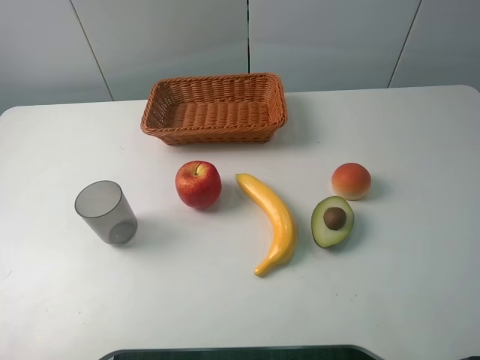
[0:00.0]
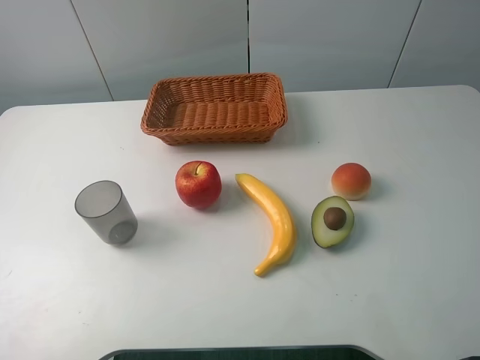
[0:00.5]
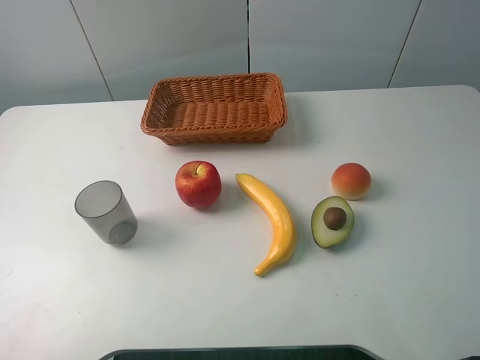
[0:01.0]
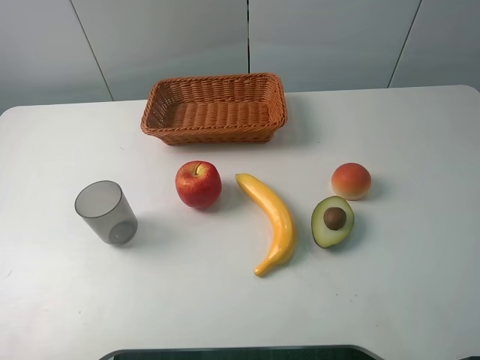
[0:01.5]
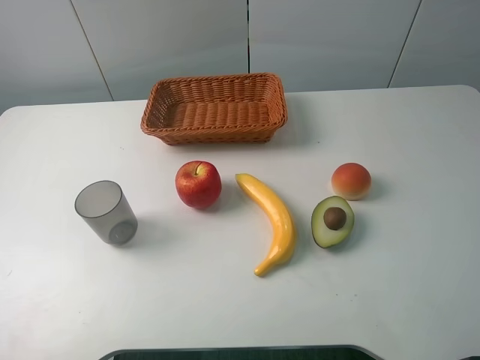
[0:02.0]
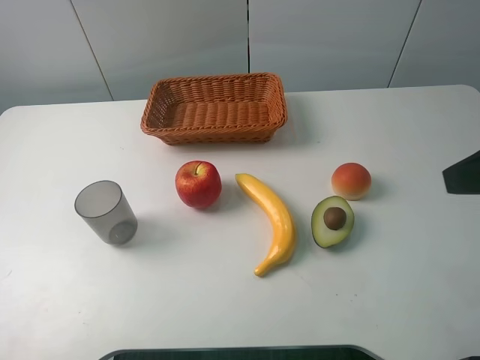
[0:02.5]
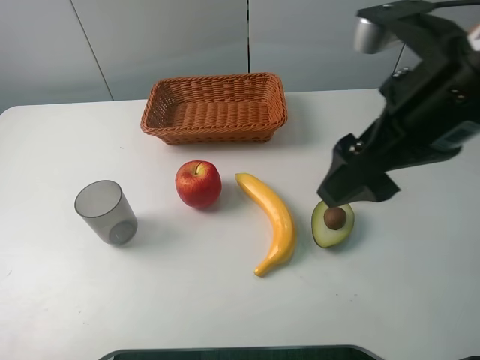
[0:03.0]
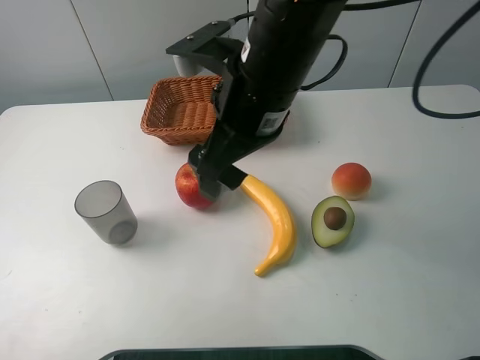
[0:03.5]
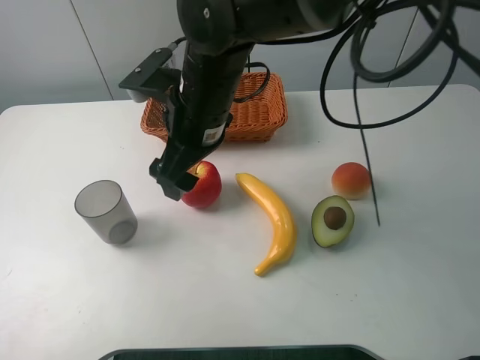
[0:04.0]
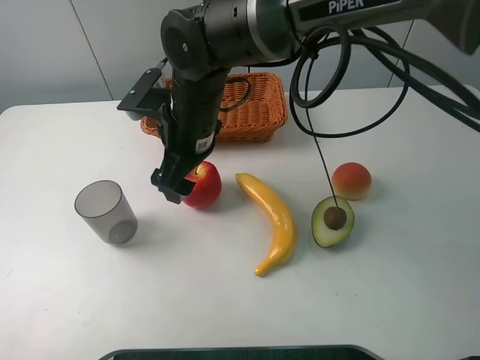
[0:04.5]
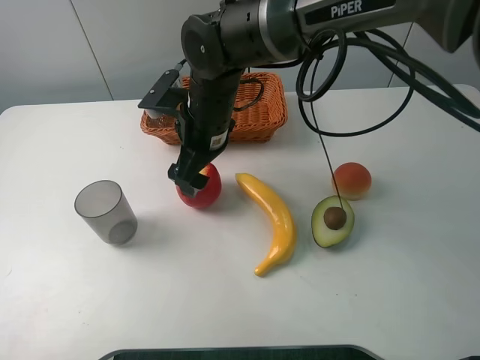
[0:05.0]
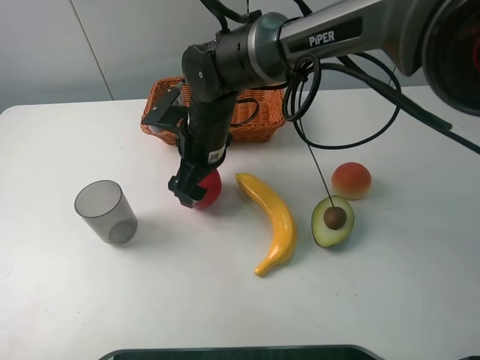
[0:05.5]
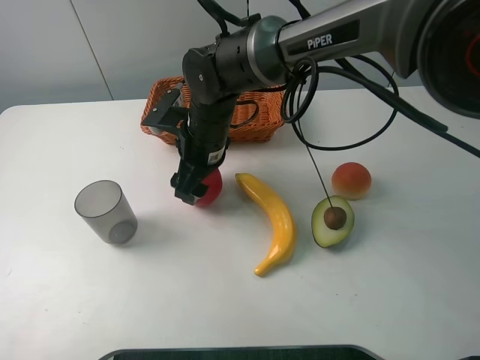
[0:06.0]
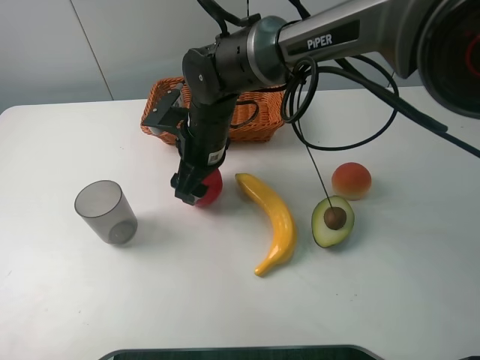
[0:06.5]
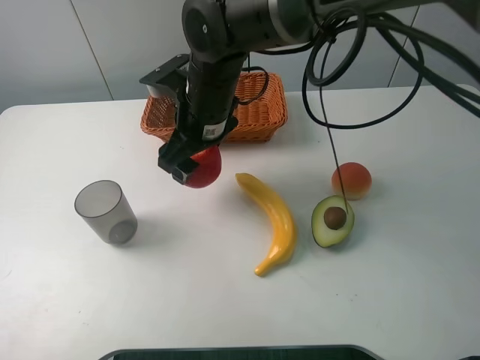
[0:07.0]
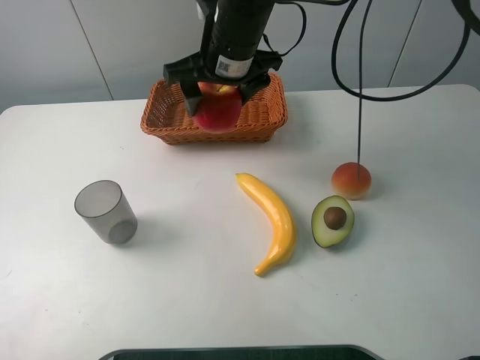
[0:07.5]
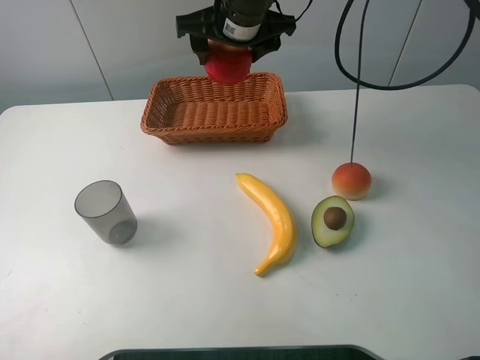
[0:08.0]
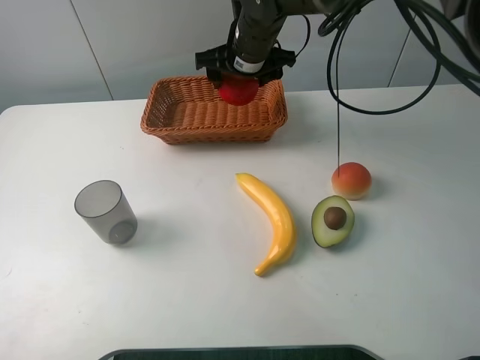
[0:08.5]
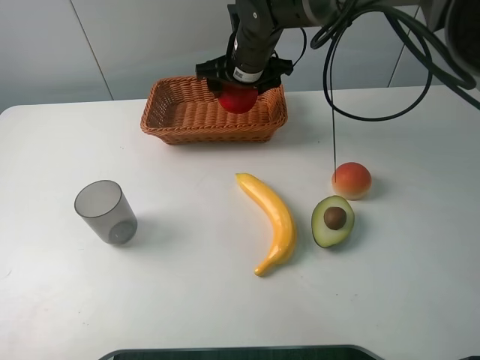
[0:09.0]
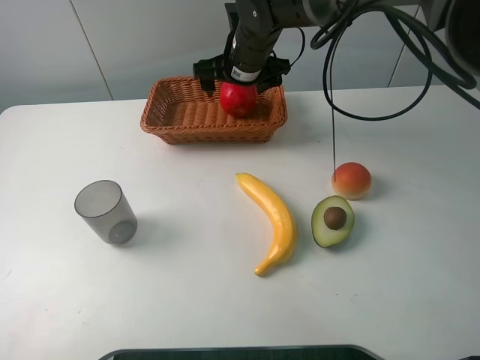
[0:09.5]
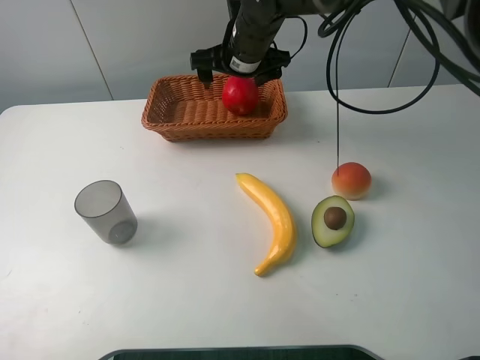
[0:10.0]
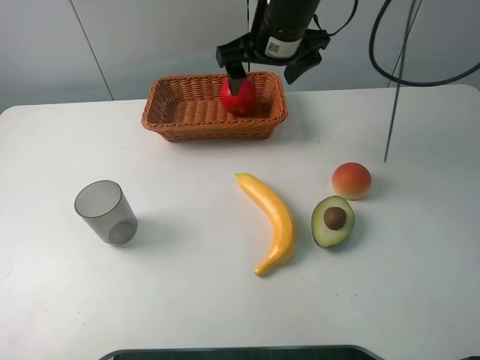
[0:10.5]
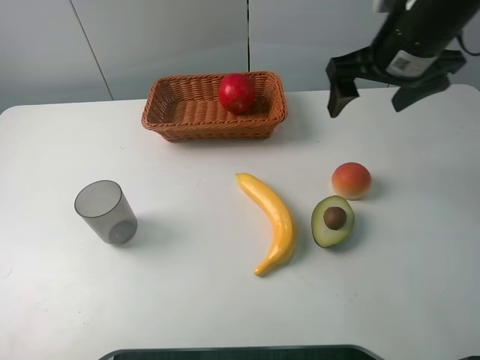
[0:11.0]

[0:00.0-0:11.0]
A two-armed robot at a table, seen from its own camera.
Task of the whole recording: randomly pick up an item from the table and put it in the basket.
Step, 0:00.0 to 0:06.0: Grasp the apple with the right gripper.
Step, 0:06.5 to 0:10.5: Place the apple into the basket with the right gripper.
0:02.0 to 0:03.5: The right gripper moves to the left and forward, roughly 35 cm.
0:03.5 to 0:05.5: The right gripper shifts roughly 15 cm downward, forward and to the left.
0:05.5 to 0:07.5: The right gripper heads upward, covering approximately 10 cm, and closes its fingers.
0:07.5 to 0:09.0: The right gripper goes about 10 cm forward and downward.
0:09.0 to 0:11.0: The right gripper goes approximately 25 cm to the right, backward and upward, and opens its fingers.

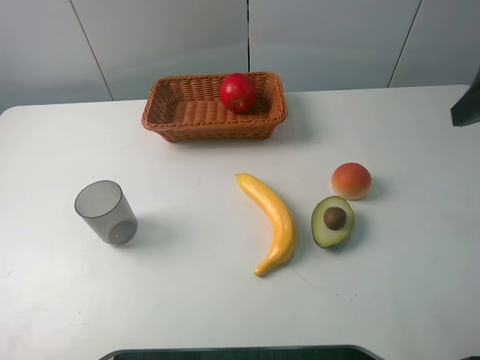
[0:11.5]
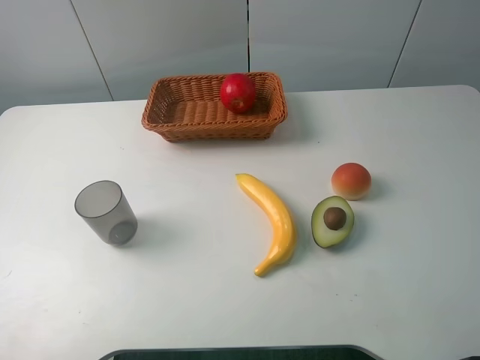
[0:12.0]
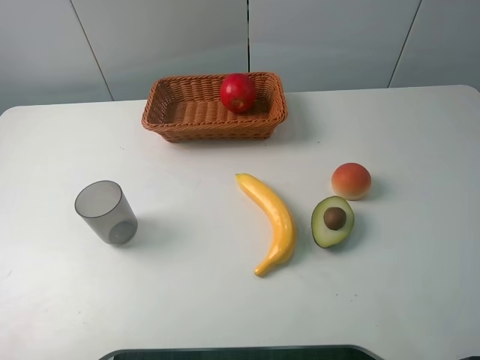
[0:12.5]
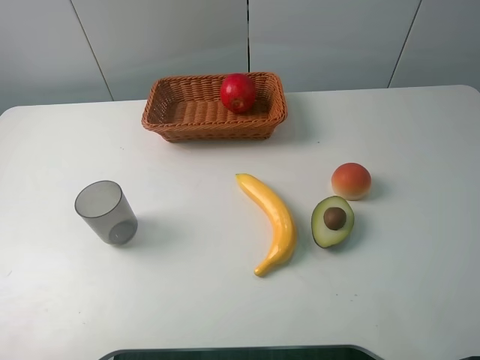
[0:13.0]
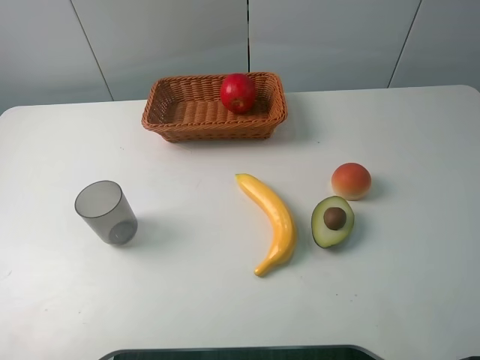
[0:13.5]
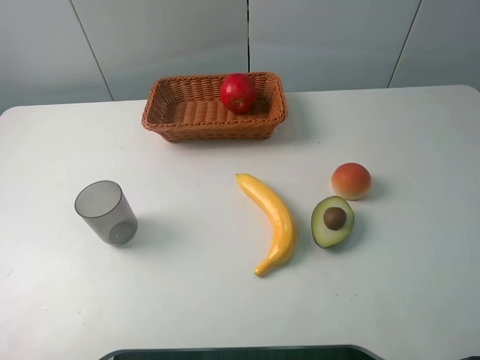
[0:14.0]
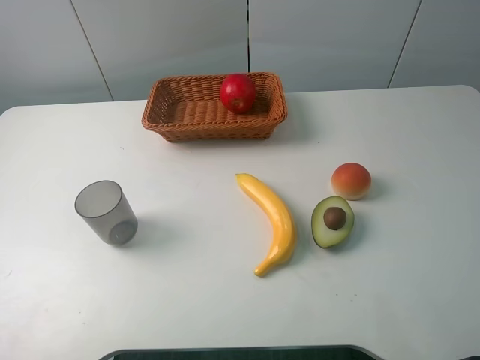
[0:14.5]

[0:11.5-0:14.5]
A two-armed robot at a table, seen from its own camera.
Task of the whole recording: randomly pick up an item from the table and put it in the basket.
0:13.0 to 0:14.5: The two grippers keep their place.
